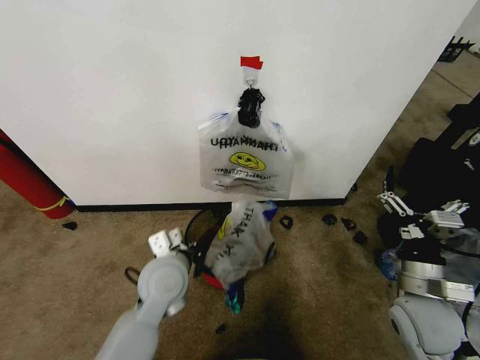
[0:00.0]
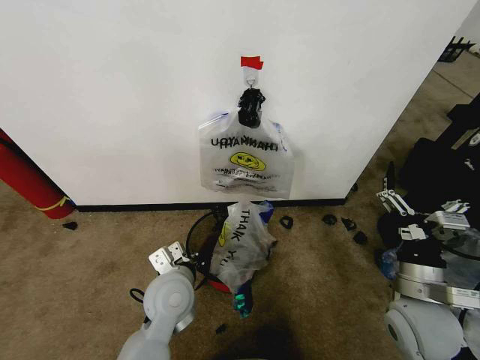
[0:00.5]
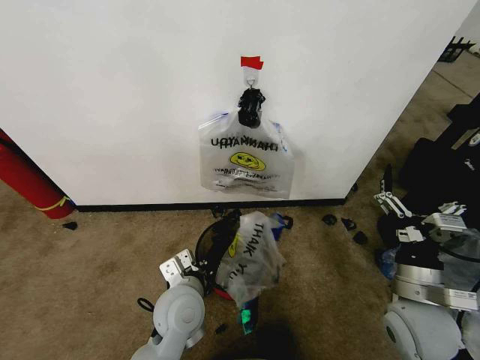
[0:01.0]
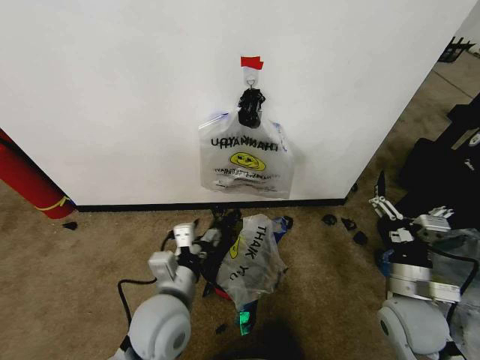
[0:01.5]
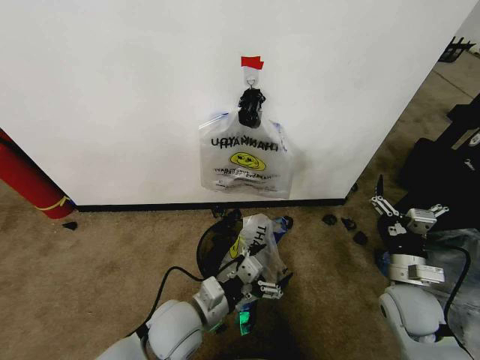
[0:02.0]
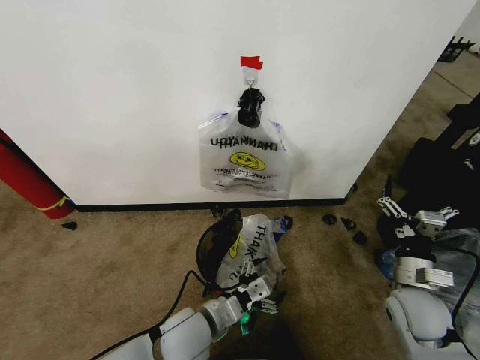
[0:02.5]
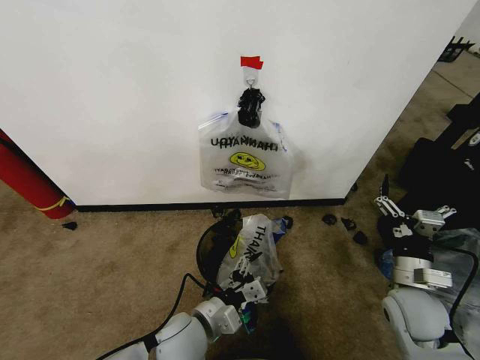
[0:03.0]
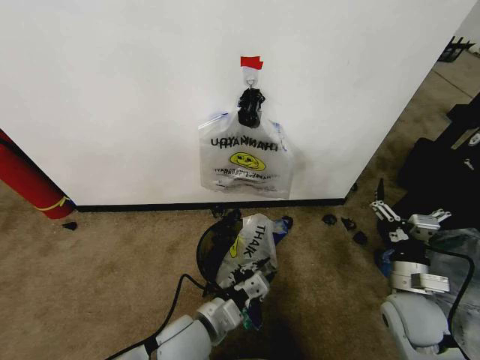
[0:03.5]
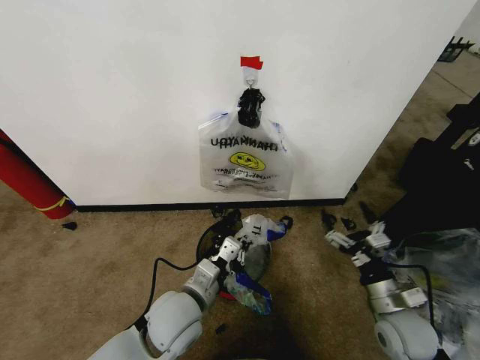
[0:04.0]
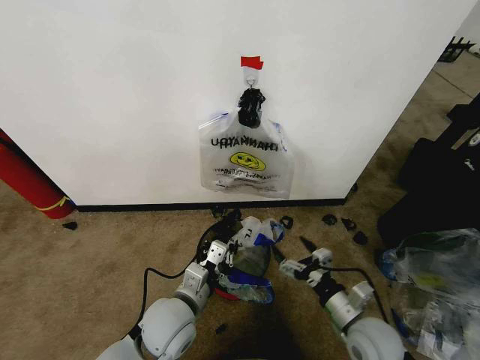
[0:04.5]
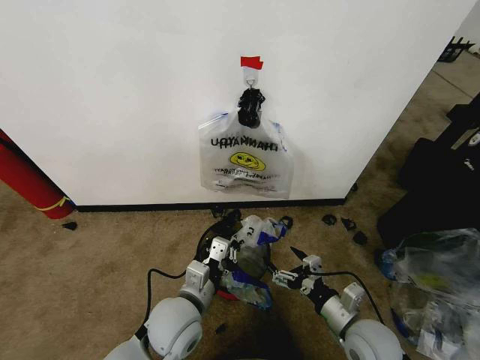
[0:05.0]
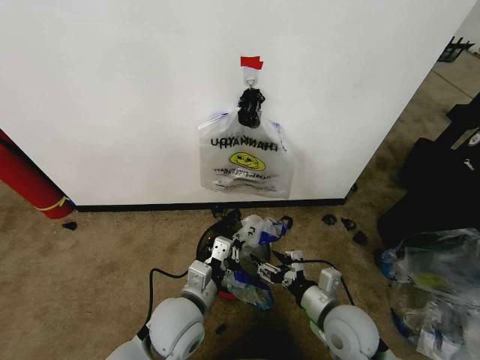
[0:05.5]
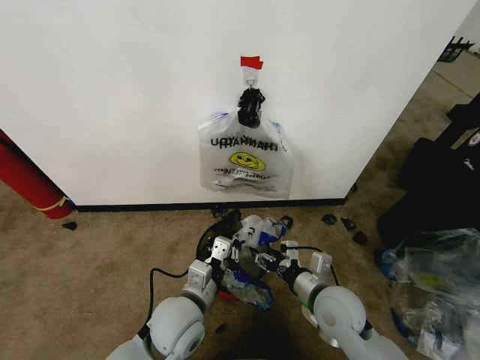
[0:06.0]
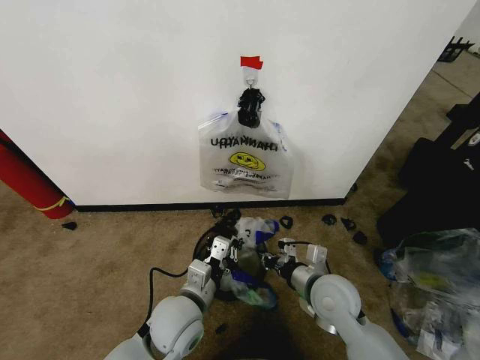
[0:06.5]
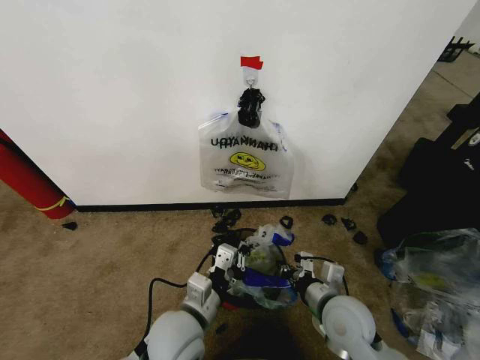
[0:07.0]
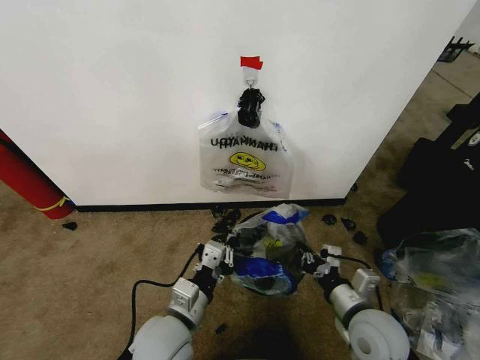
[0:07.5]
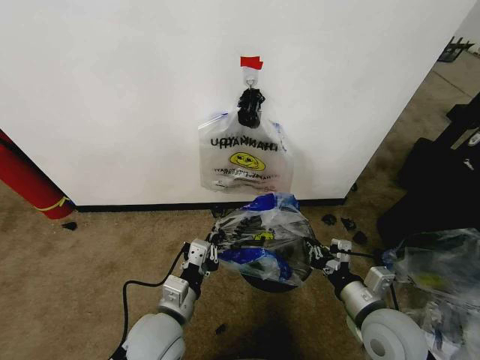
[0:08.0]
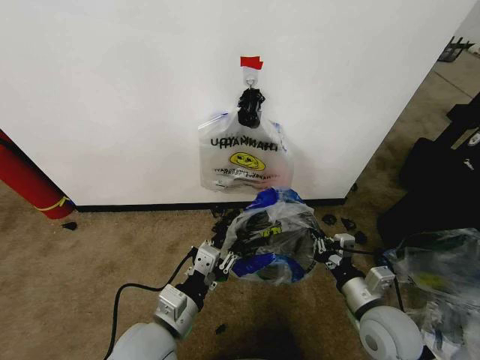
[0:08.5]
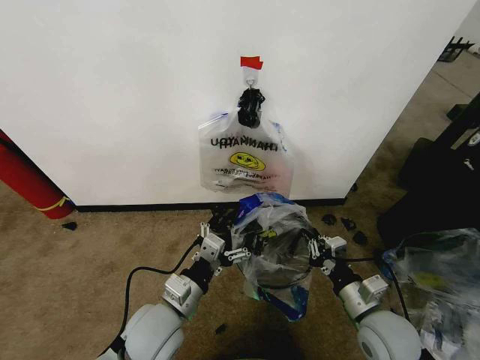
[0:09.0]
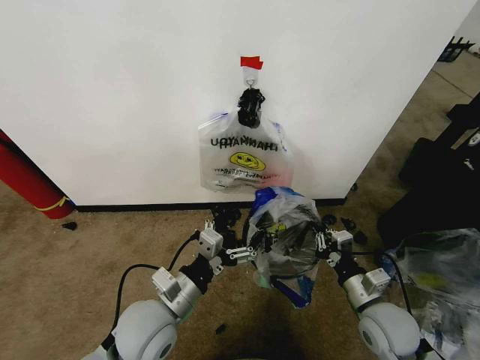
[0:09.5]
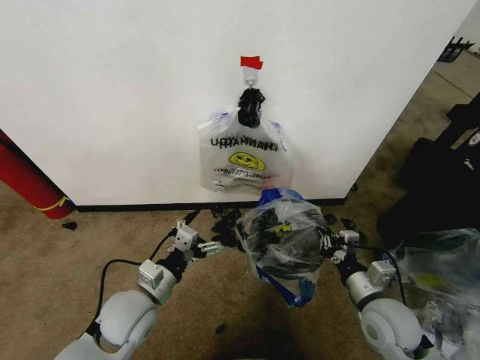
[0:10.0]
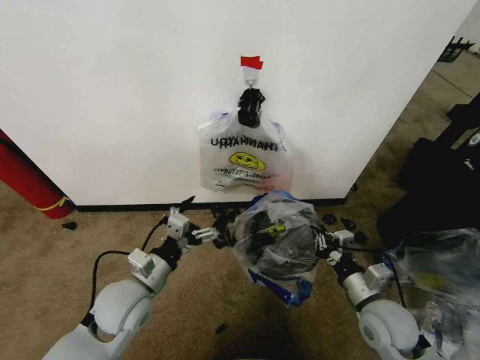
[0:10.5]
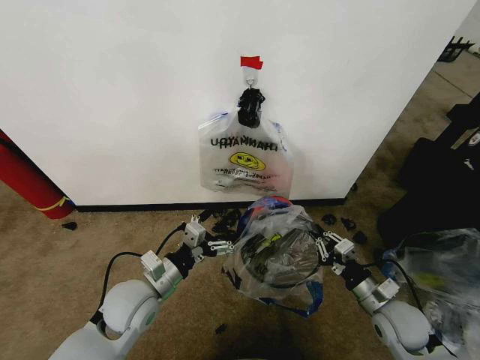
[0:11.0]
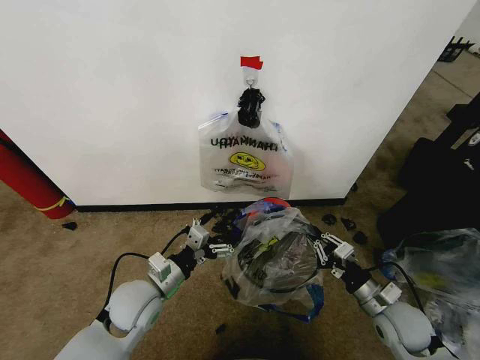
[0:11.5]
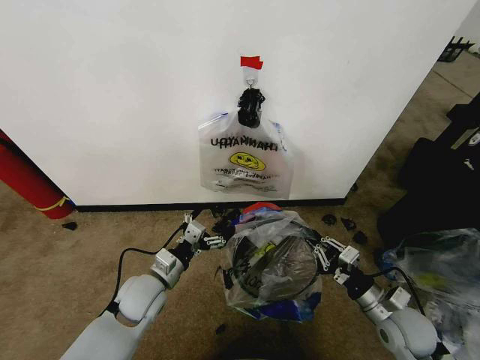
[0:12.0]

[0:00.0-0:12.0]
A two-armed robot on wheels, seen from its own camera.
Task of the whole recording: Pick up the garbage bag from the wall and place it over the trash bin.
0:00.0 to 0:02.0: The left gripper travels backward and downward by roughly 10 cm, and opens.
0:02.0 to 0:04.0: The right gripper changes place by about 5 cm; the left gripper closes.
0:04.0 to 0:06.0: The right gripper is displaced to the left by about 15 cm.
0:06.0 to 0:08.0: The right gripper moves to the right and backward, about 10 cm, and closes.
0:08.0 to 0:10.0: The left gripper is displaced to the left by some 5 cm, and opens its fingers.
0:10.0 to 0:12.0: The right gripper moves to the right, some 5 cm. The left gripper shifts by about 5 cm.

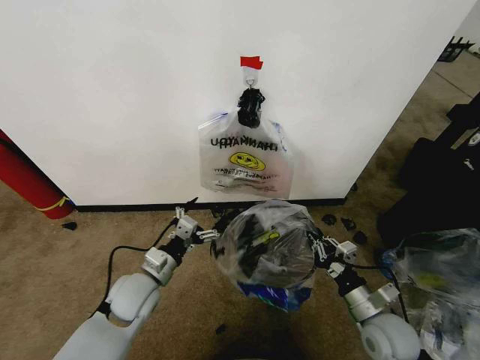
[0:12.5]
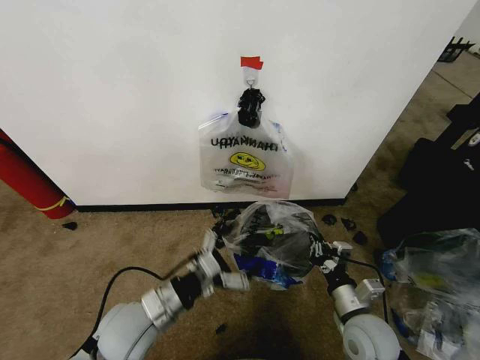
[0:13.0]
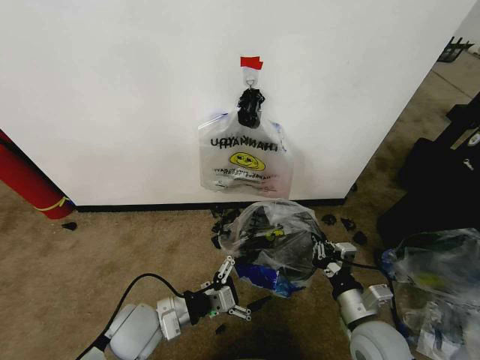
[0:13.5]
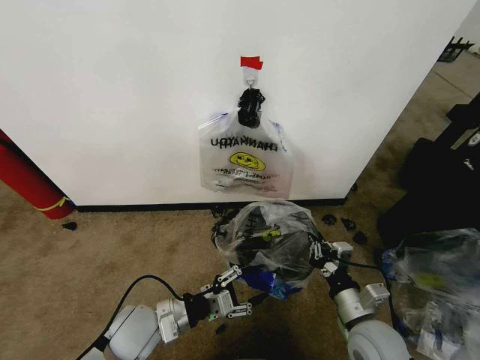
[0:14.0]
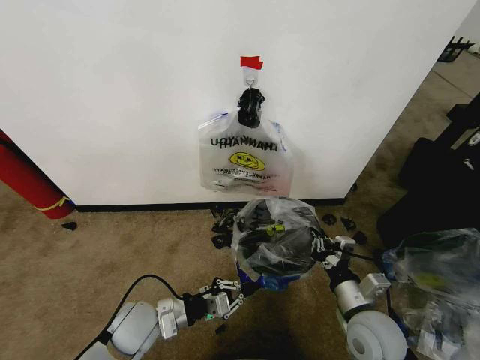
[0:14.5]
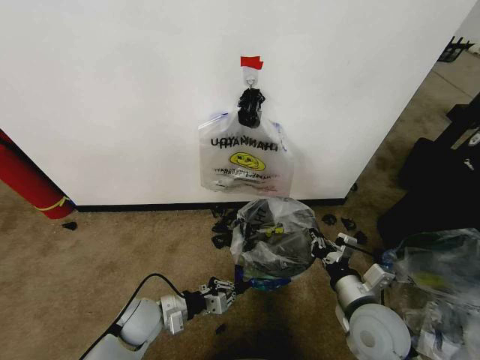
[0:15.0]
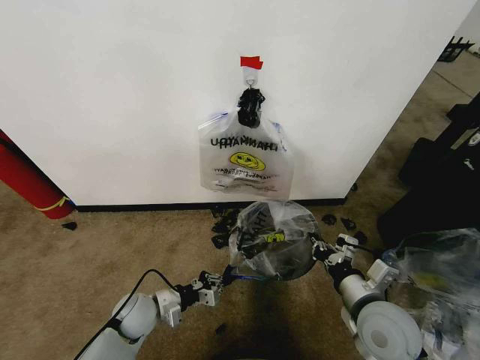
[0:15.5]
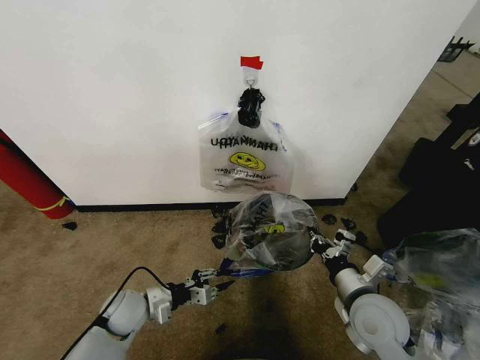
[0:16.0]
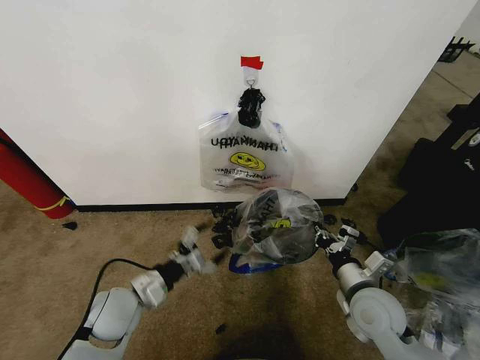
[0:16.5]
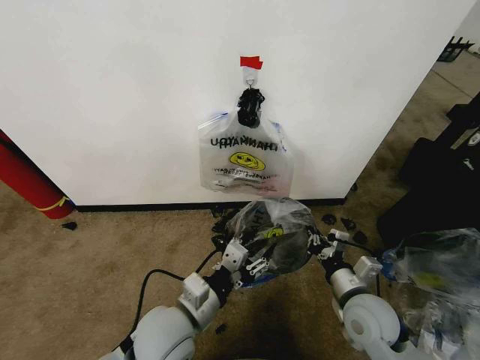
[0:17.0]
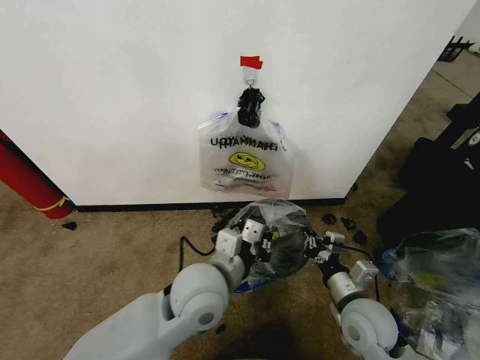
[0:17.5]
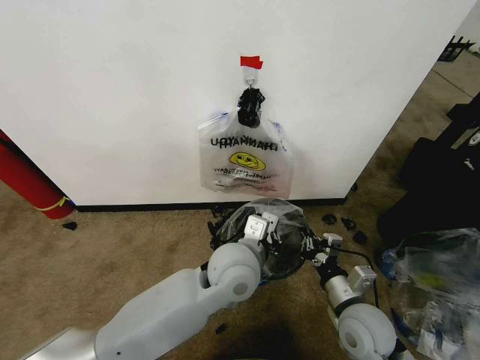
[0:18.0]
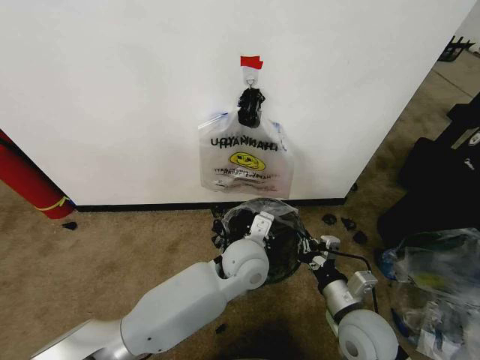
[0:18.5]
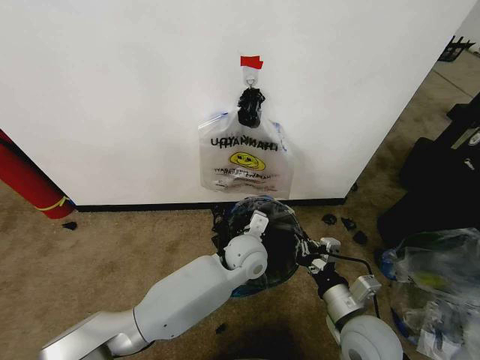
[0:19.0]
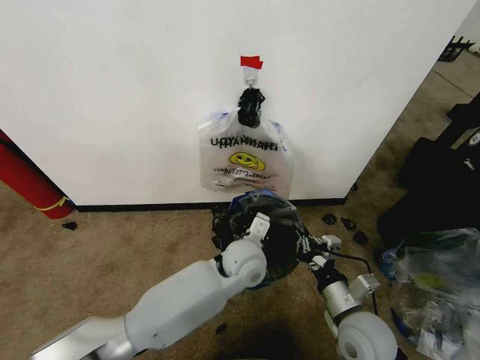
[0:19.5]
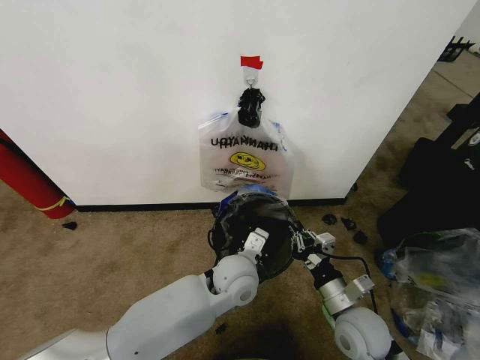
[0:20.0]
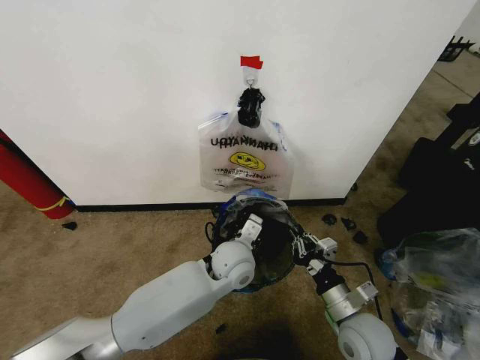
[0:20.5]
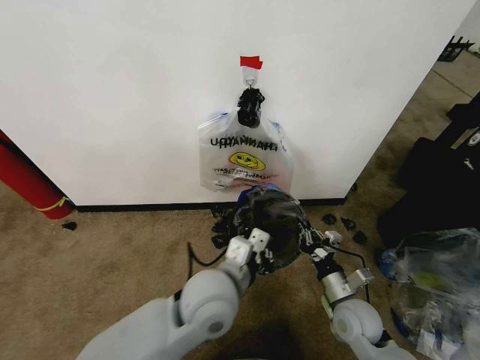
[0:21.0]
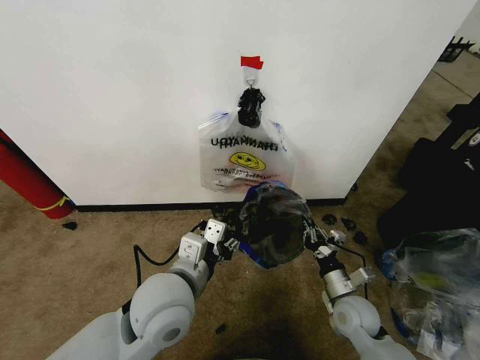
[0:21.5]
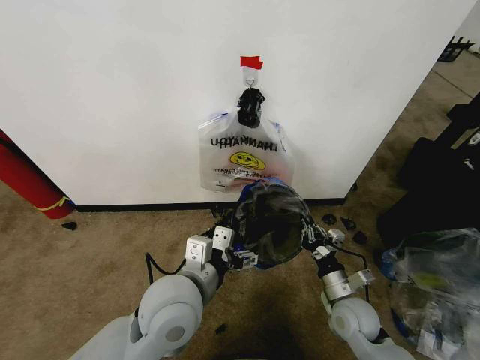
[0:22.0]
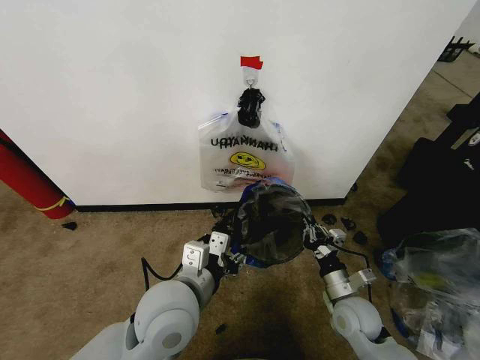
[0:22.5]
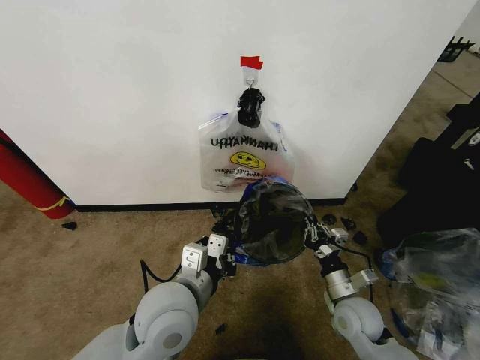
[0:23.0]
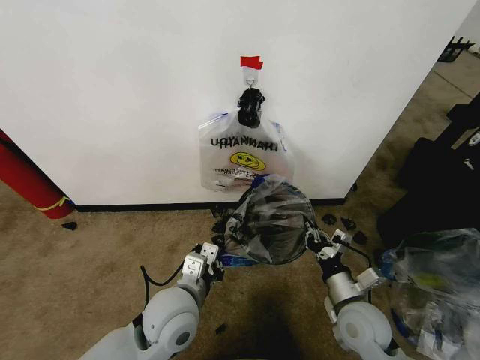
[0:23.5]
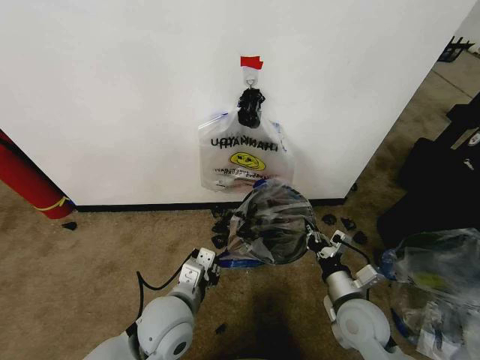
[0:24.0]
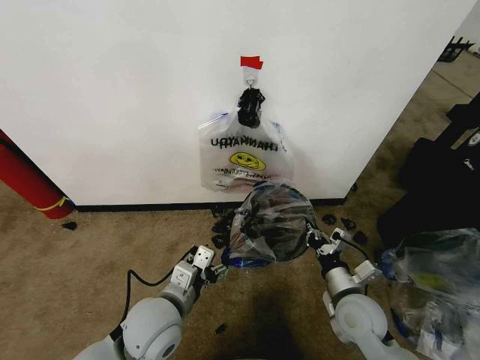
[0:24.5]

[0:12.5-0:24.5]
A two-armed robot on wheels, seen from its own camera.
Task of the whole recording: Pick up the garbage bag from the wall and place it over the trash bin.
0:12.5 to 0:14.5: The right gripper changes place by about 5 cm, while the left gripper changes place by some 5 cm, and closes its fingers.
0:14.5 to 0:16.5: The left gripper ends up roughly 5 cm from where it was, and opens.
0:16.5 to 0:18.5: The left gripper travels to the right by some 25 cm, and closes up. Meanwhile the right gripper ends up roughly 5 cm from where it was.
0:18.5 to 0:20.5: The grippers make only small movements.
0:20.5 to 0:22.5: The right gripper shifts about 5 cm forward, while the left gripper is displaced backward, to the left and upward by some 20 cm, and opens up.
0:22.5 to 0:24.5: The left gripper heads downward, covering about 10 cm, and closes and opens again.

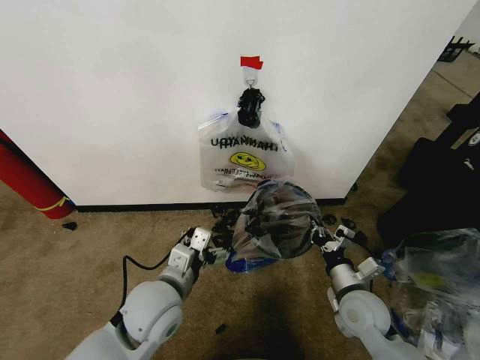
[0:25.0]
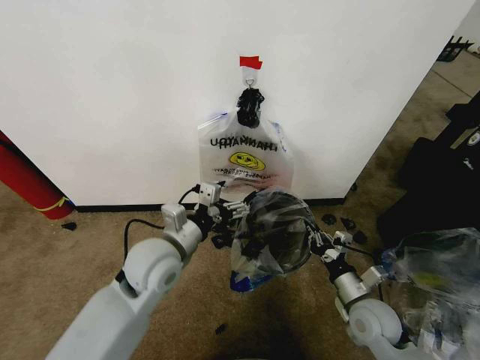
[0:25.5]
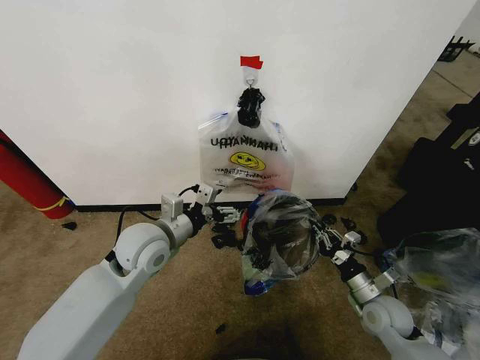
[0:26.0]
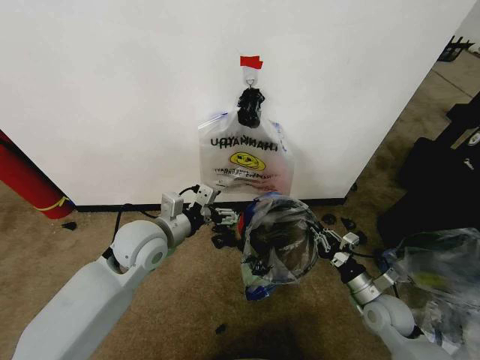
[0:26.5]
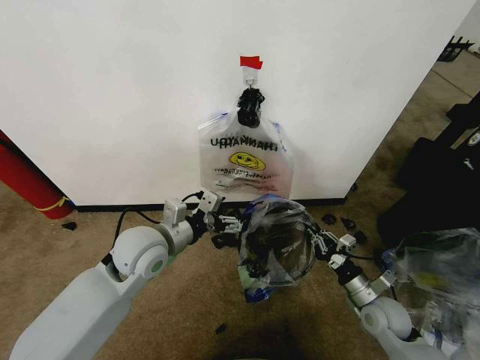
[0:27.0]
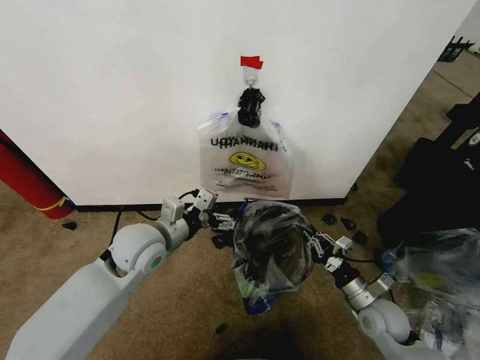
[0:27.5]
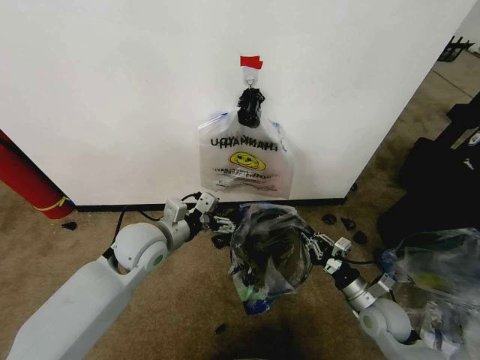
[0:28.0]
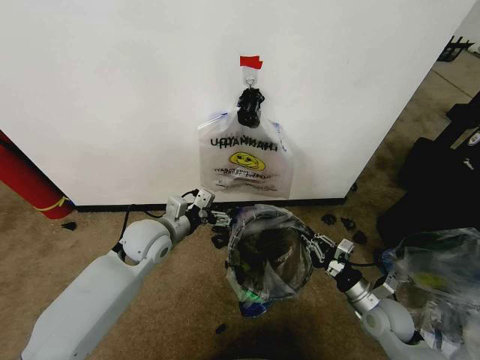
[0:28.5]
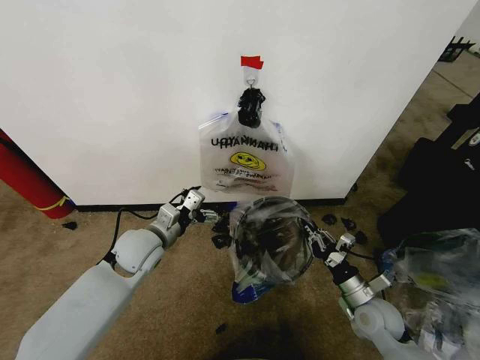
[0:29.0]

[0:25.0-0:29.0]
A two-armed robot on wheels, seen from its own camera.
Task of the whole recording: Pick up the garbage bag from the wall and place it over the trash bin.
0:25.0 to 0:27.0: The right gripper travels to the right and downward by some 10 cm. The left gripper shifts about 10 cm forward.
0:27.0 to 0:29.0: The left gripper moves downward, approximately 5 cm.
